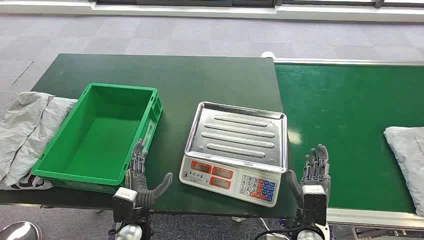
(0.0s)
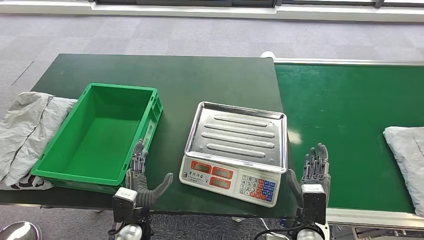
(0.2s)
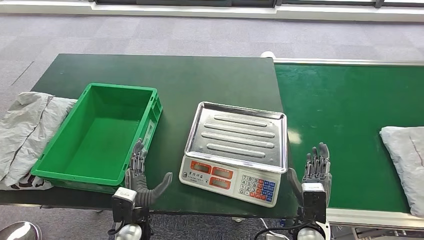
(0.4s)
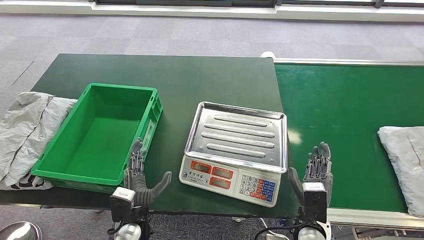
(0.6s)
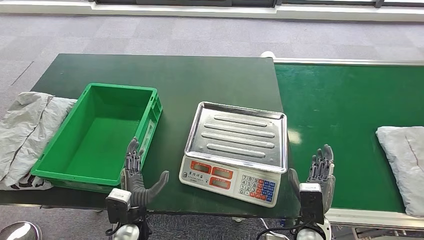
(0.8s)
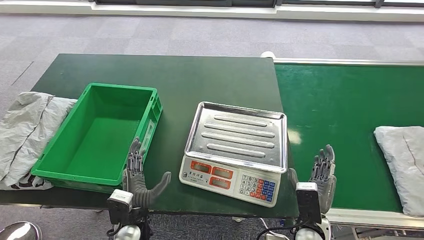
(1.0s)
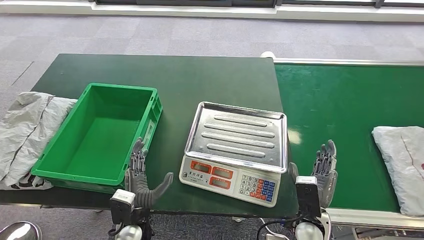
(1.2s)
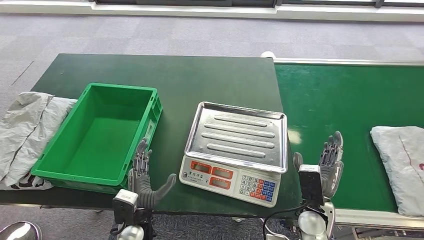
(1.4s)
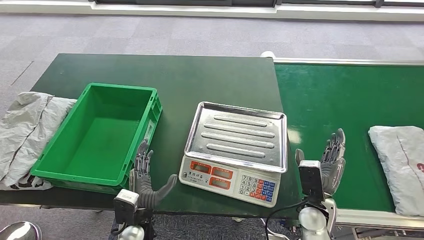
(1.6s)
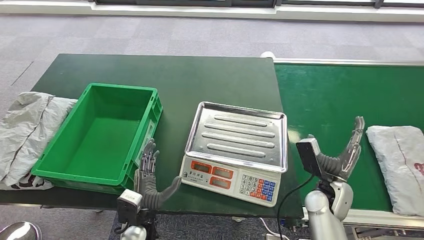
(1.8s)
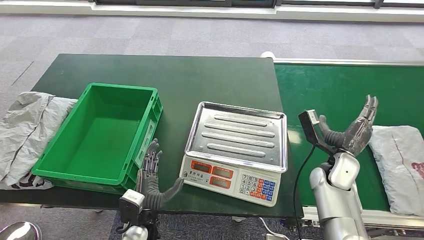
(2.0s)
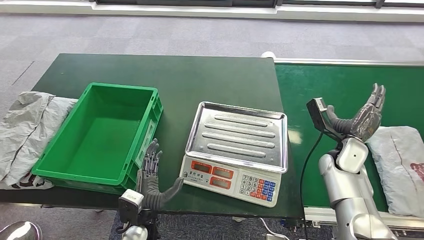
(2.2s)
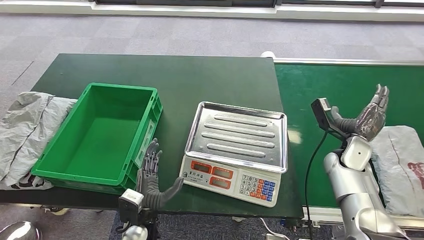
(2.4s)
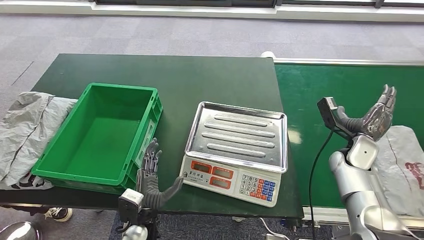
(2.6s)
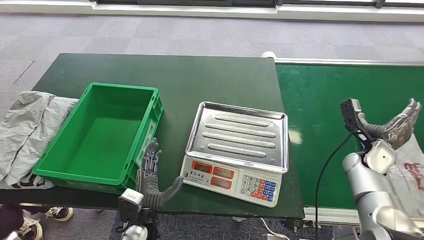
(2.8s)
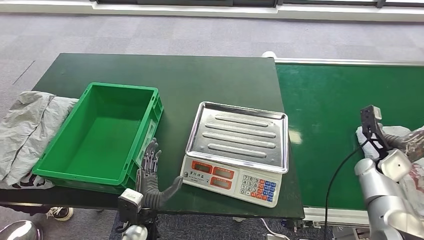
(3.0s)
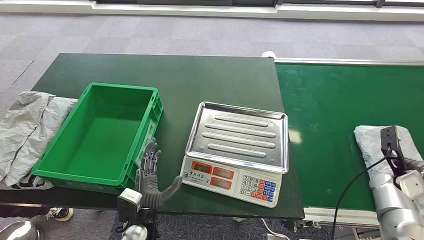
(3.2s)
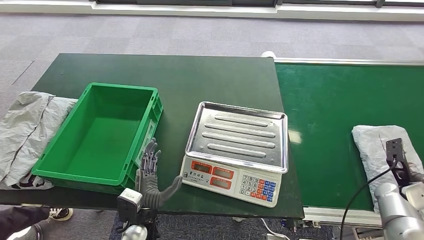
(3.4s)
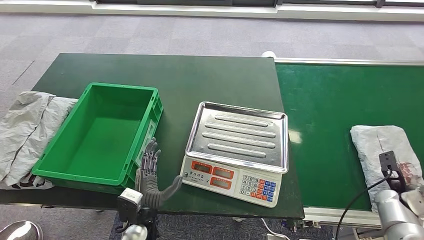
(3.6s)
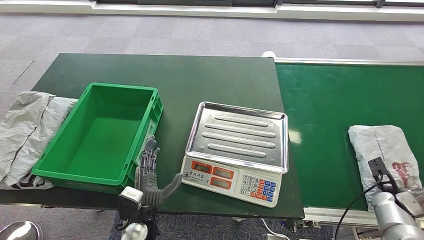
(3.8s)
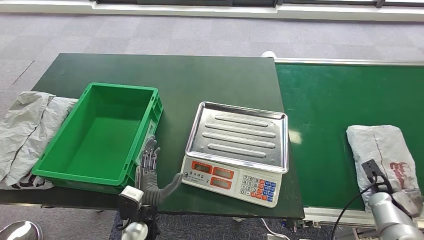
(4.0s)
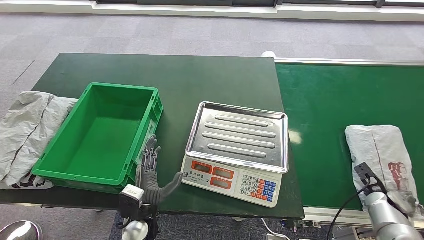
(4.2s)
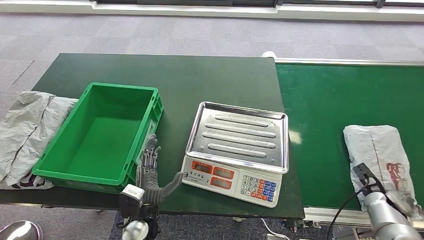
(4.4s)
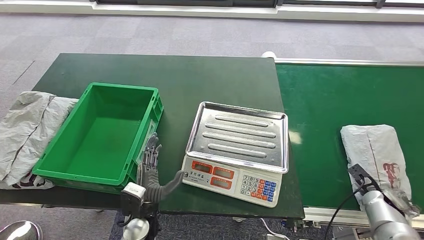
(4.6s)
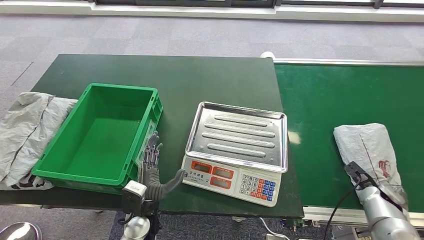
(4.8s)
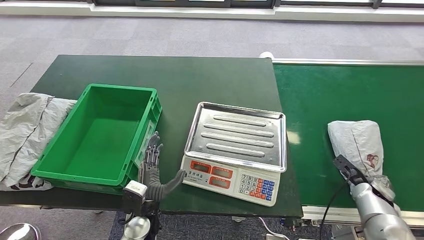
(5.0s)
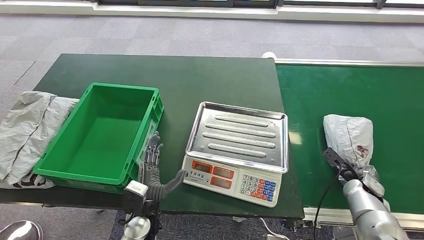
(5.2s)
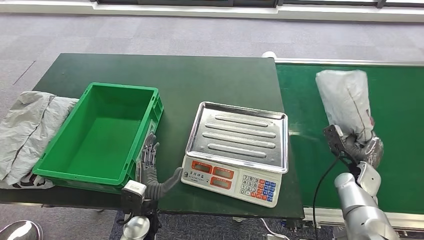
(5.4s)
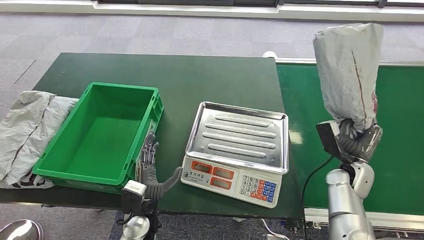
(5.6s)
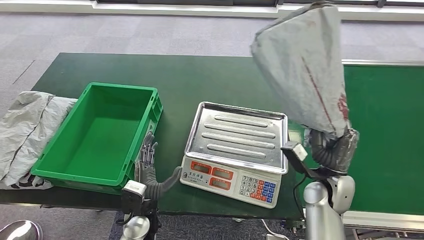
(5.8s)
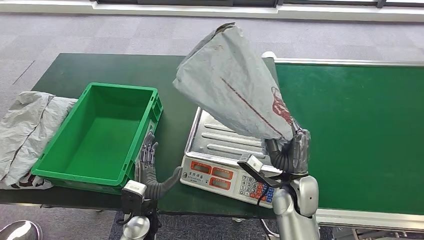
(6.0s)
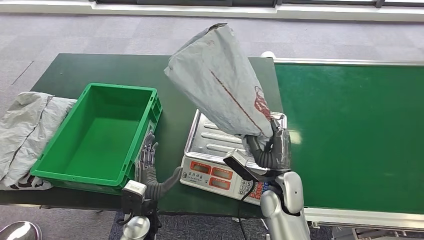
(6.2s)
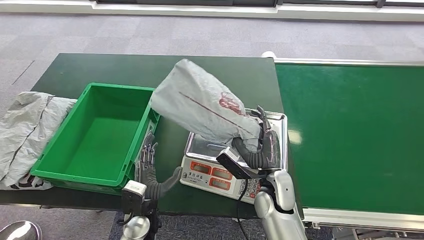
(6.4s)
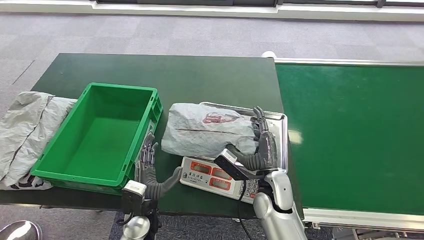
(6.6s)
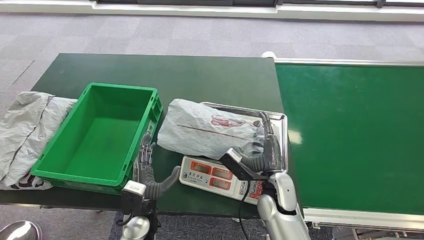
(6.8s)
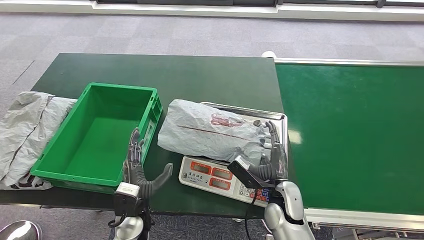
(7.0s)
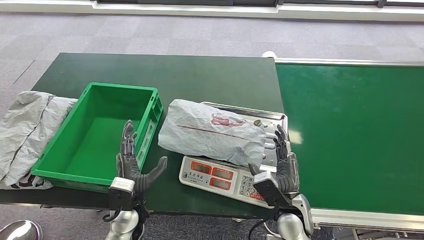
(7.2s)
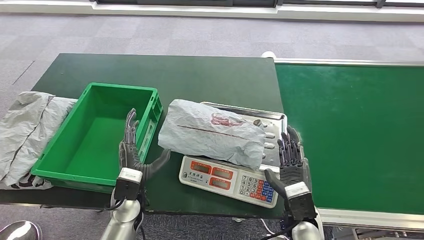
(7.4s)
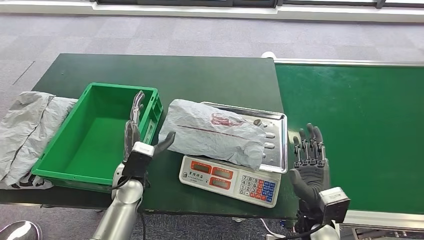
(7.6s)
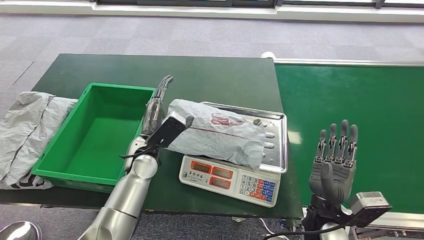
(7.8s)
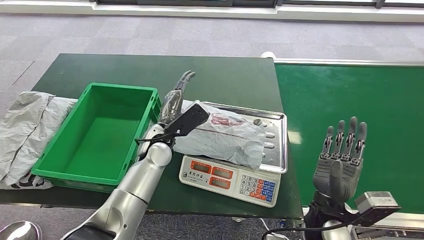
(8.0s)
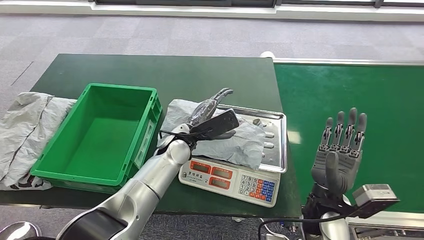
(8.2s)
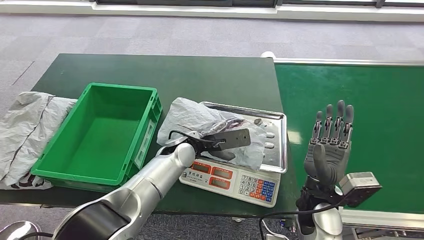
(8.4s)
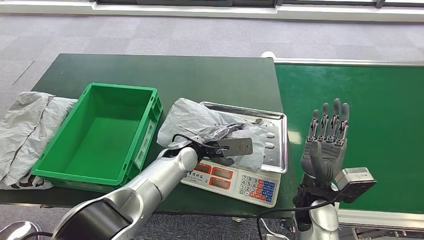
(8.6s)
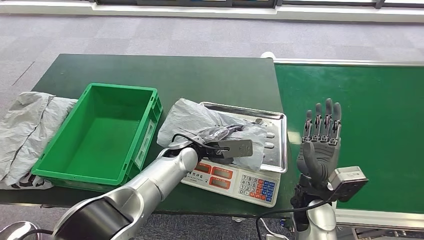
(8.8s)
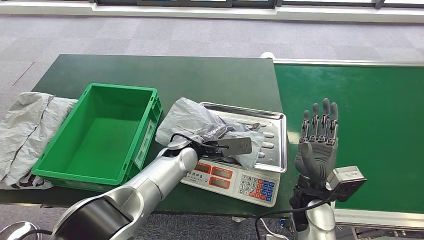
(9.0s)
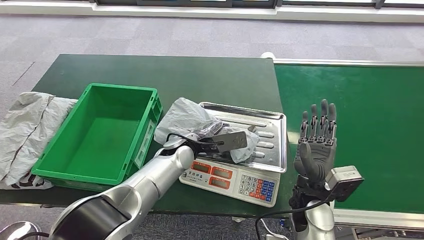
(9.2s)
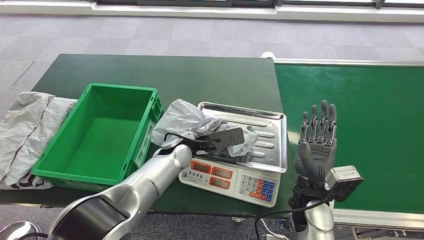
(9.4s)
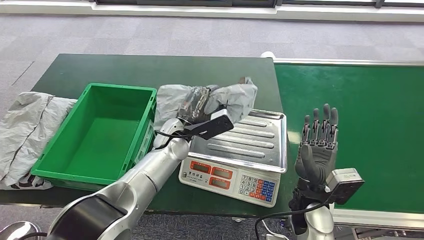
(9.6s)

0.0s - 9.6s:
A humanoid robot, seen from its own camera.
Step, 0.0s - 5.8s: Take the parcel off the conveyor belt.
Step, 6.0s - 7.6s: Place the parcel onto the inbound machine.
1.6s - 3.2s: The right hand moves to the right, approximately 25 cm.
3.2s - 4.8s: The right hand heads downward, covering approximately 5 cm.

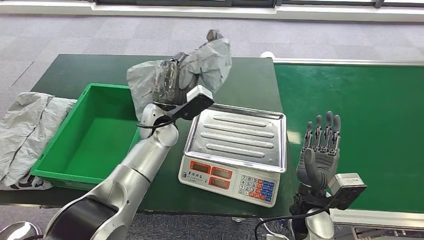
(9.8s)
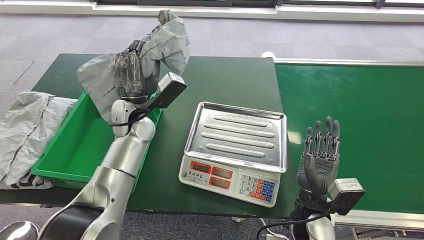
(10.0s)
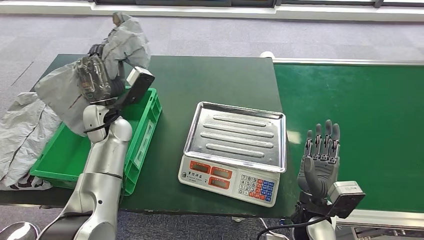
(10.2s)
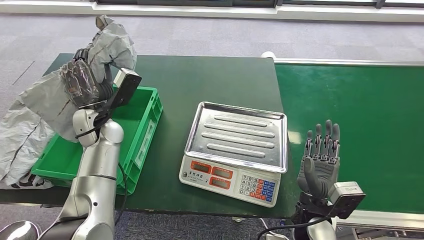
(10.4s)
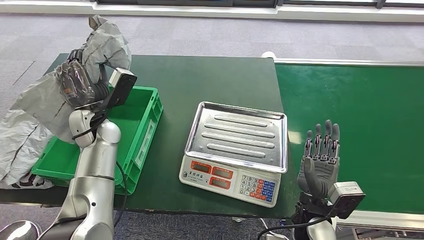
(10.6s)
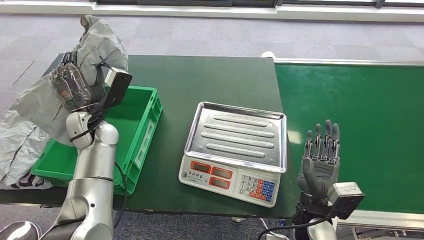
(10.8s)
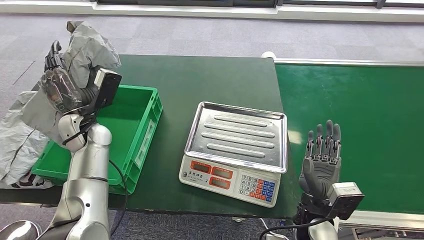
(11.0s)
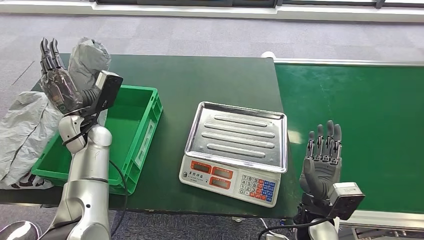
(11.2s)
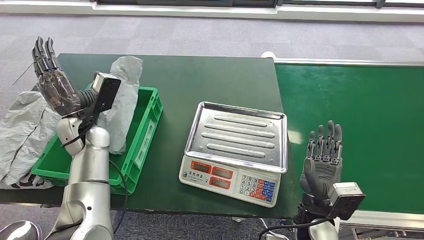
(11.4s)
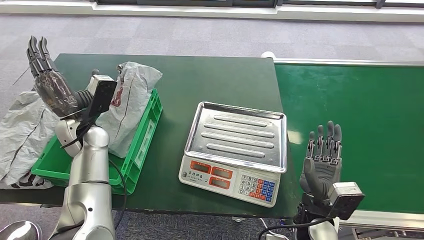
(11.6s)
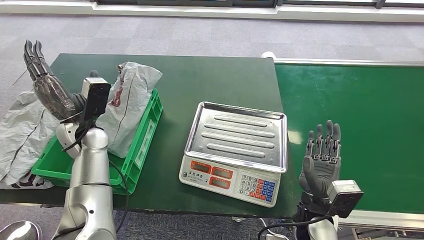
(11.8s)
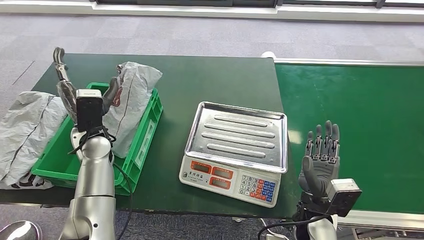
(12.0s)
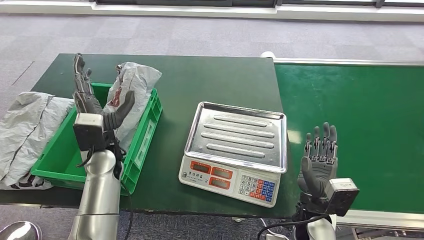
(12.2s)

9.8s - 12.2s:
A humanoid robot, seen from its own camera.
Step, 9.8s - 12.2s: Put the parcel inside the courier box.
11.0s - 12.2s: The left hand heads to the right and backward, covering roughly 10 cm.
